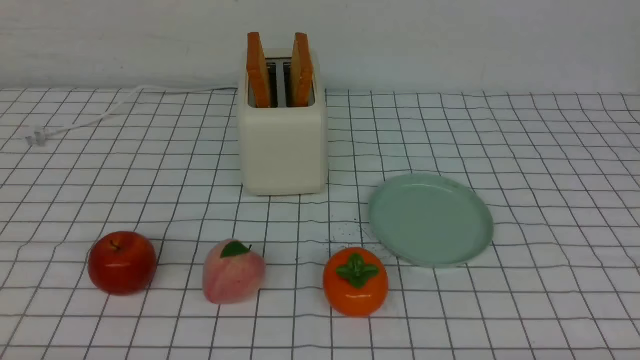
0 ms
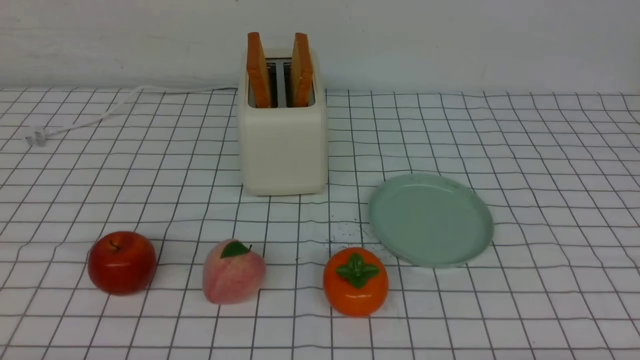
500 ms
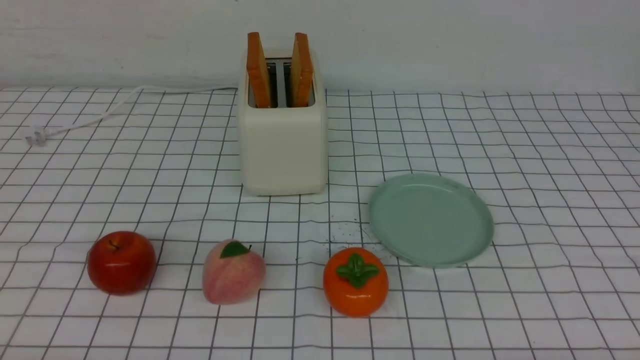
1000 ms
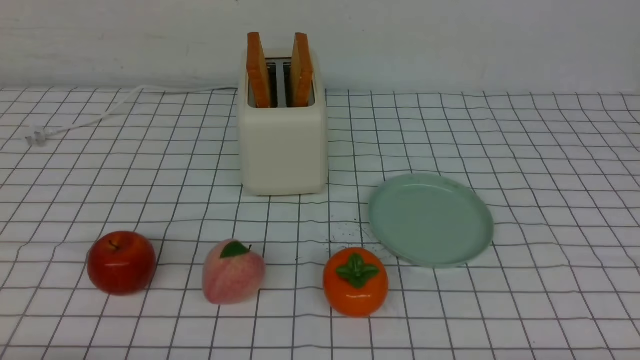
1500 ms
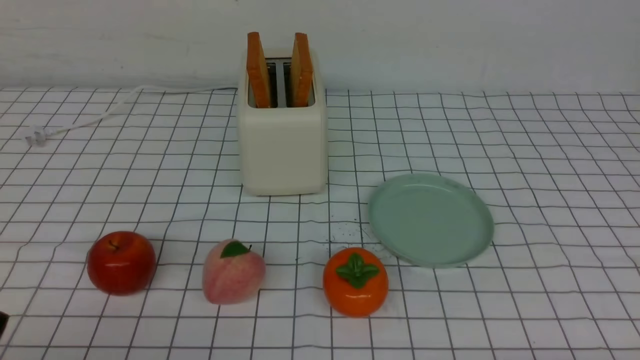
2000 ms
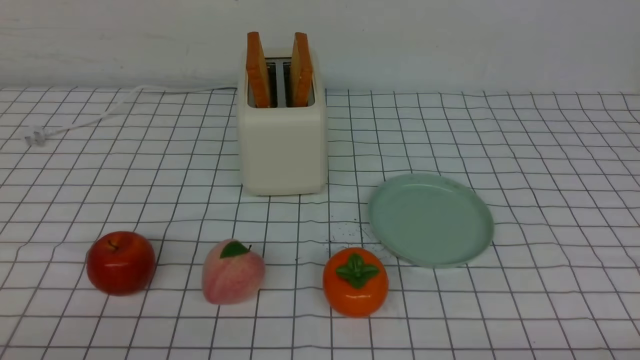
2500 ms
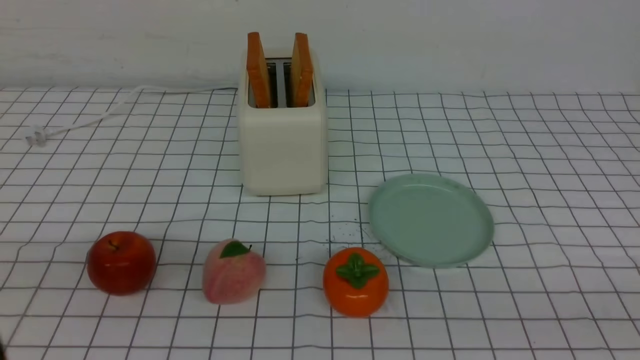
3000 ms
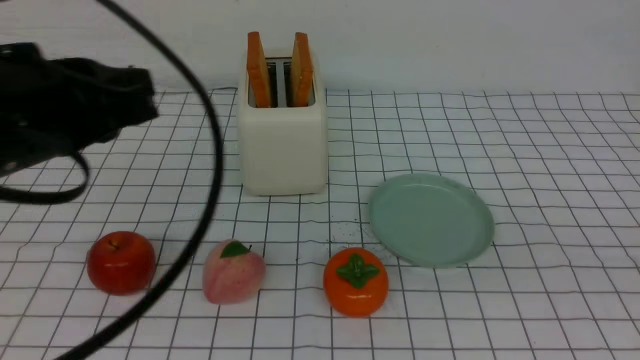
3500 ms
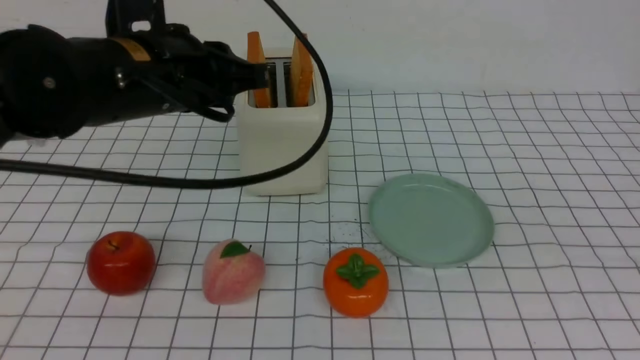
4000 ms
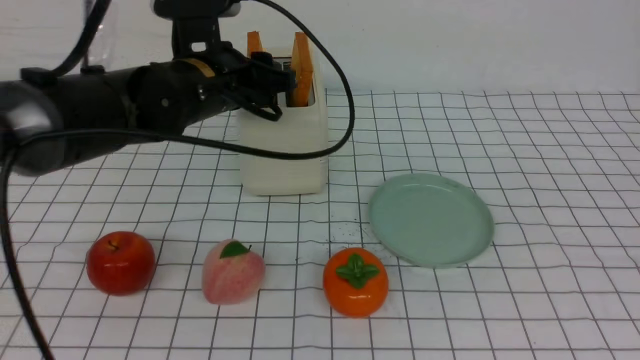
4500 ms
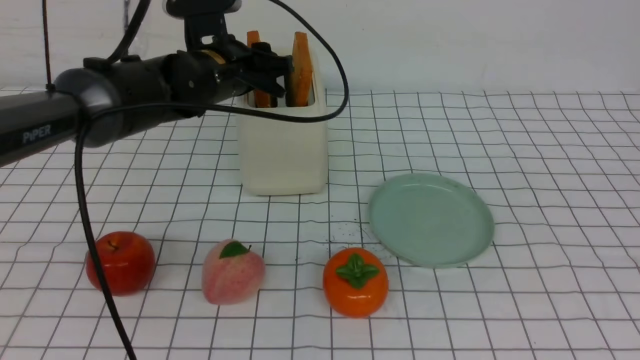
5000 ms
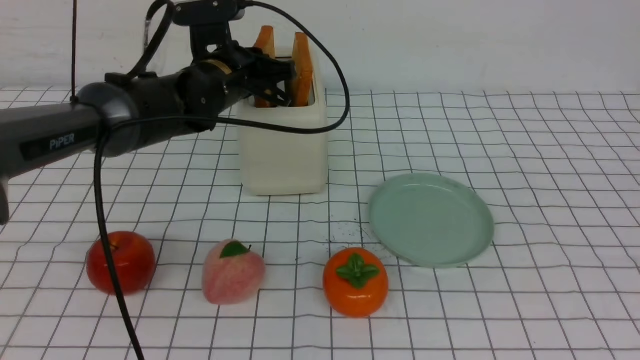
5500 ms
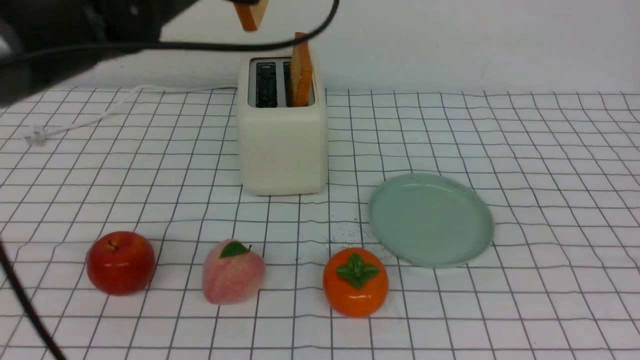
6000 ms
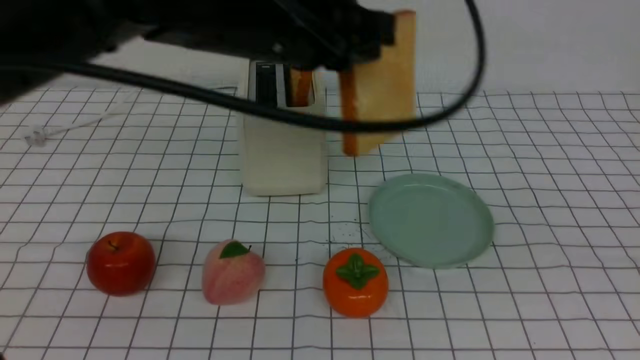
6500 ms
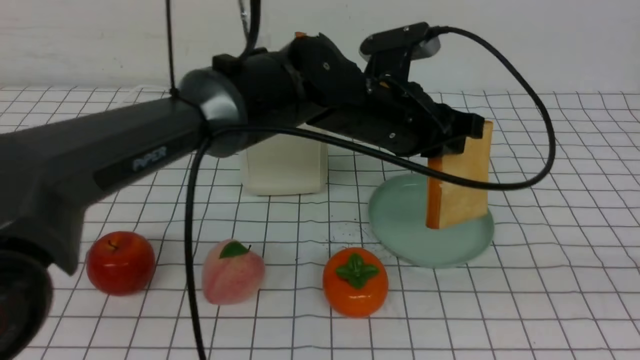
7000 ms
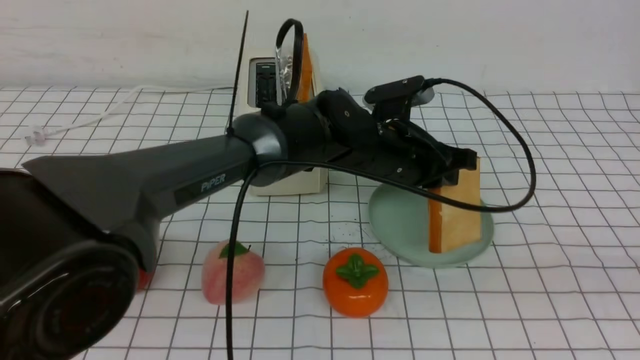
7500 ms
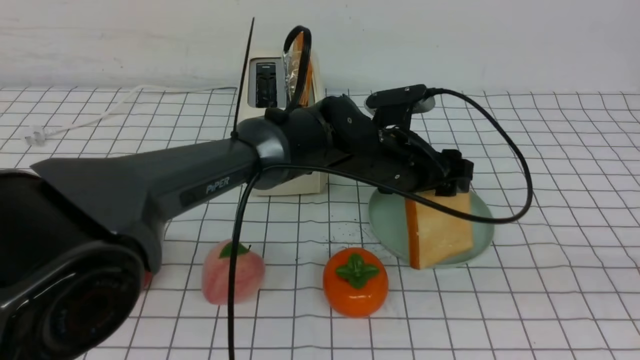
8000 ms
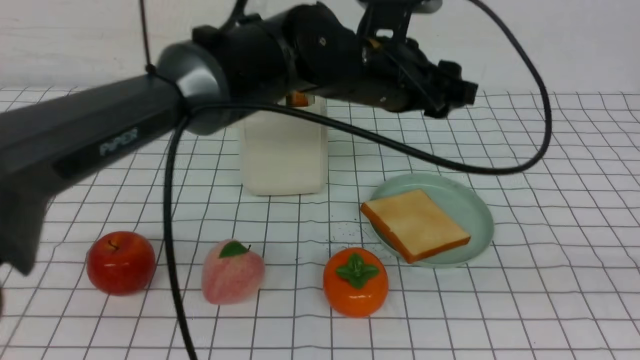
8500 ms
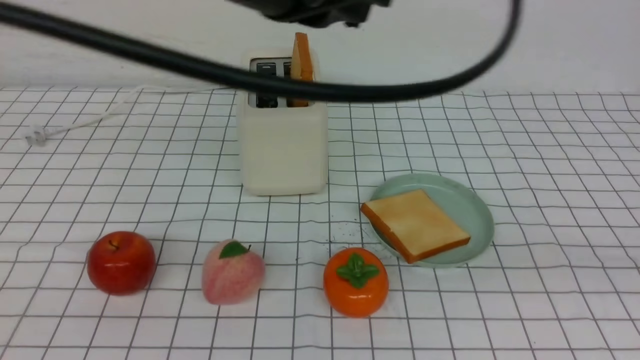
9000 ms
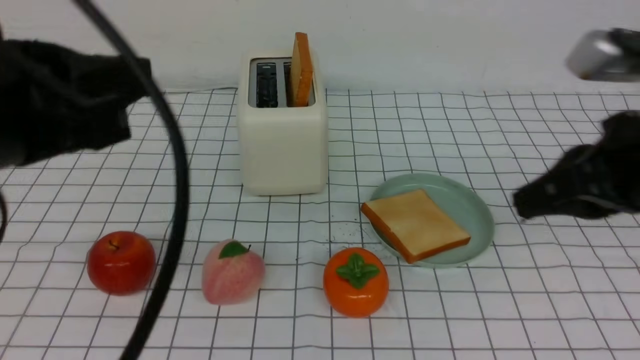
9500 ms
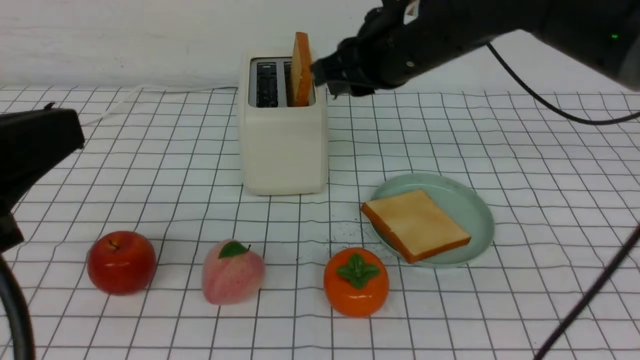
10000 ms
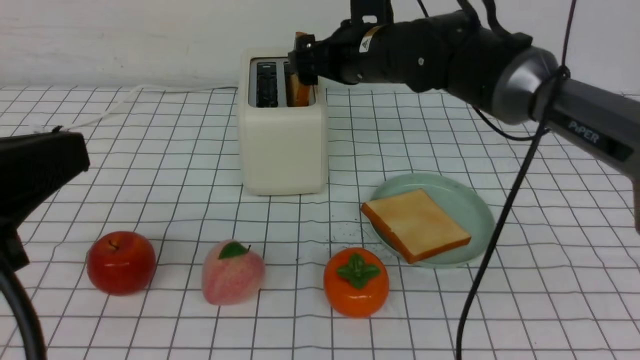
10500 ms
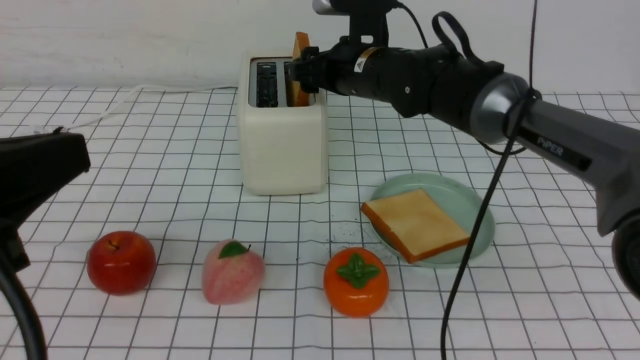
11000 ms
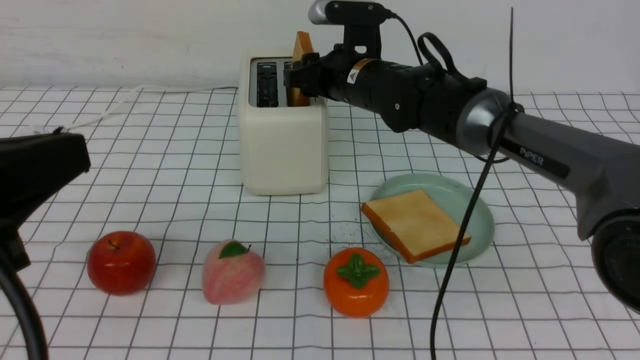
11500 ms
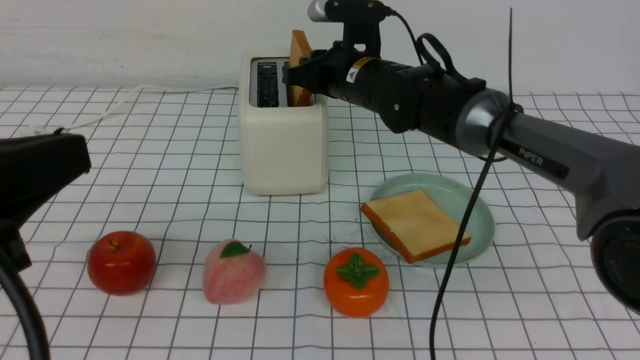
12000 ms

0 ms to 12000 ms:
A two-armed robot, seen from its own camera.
Task of the whole recording: take toasted bread from bread machine on white checkered table place on plate.
Step, 0 ms to 5500 ms: use the left arm to take out a slice of bread.
Step, 6000 ms to 8000 ms: use the left arm to put a slice of bread into the empty plate.
2000 ms to 4000 ms: The right gripper moves upward, roughly 25 cm, and closes its fingers. The left gripper is displaced forward, upward and to the right by approximately 30 cm, and closes, then reopens.
4000 ms to 6000 ms: The left gripper goes roughly 10 cm forward and upward, and opens, then closes once more.
6000 ms to 8000 ms: The right gripper shifts by approximately 5 cm. Meanwhile the left gripper moves to the right and downward, roughly 25 cm, and opens up.
8000 ms to 10000 ms: The left gripper is displaced backward, to the left and upward by approximately 40 cm, and closes its fingers, while the right gripper shifts some 35 cm forward and to the left, and opens.
10000 ms to 12000 ms: The right gripper shifts about 15 cm forward and downward, and opens, then closes once more.

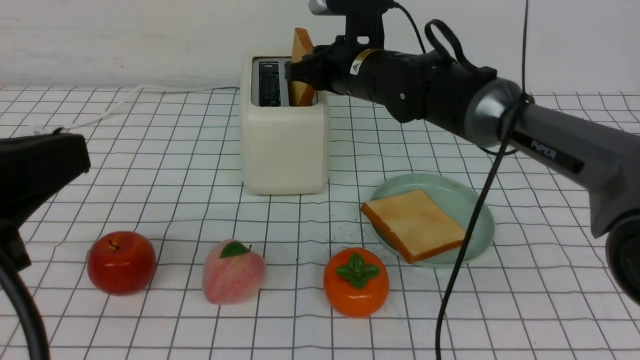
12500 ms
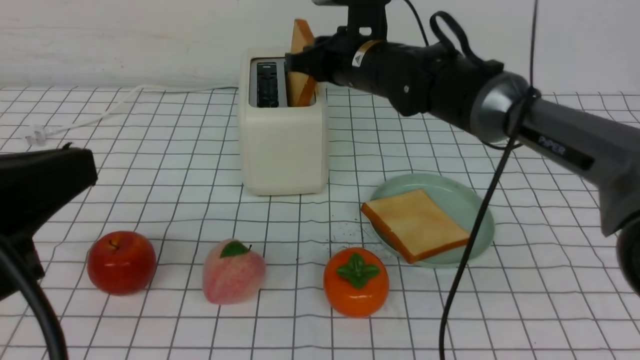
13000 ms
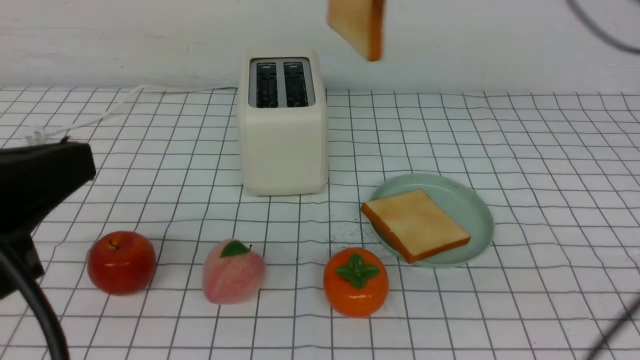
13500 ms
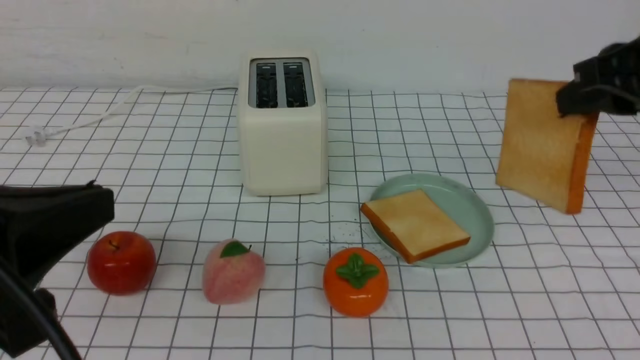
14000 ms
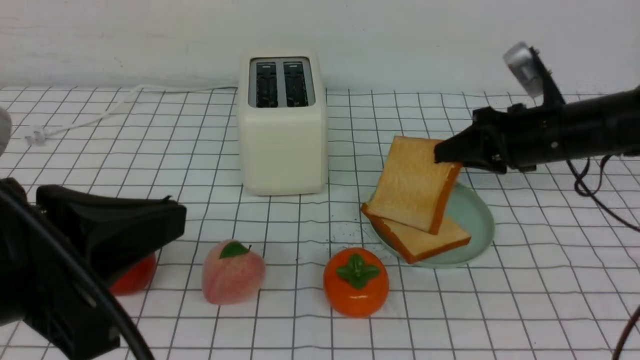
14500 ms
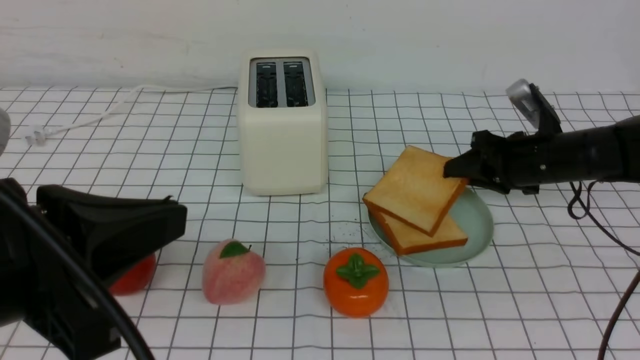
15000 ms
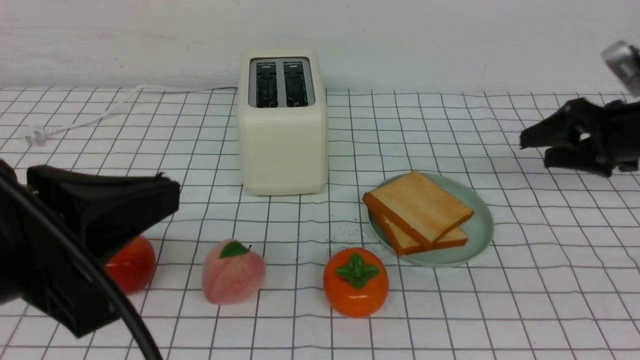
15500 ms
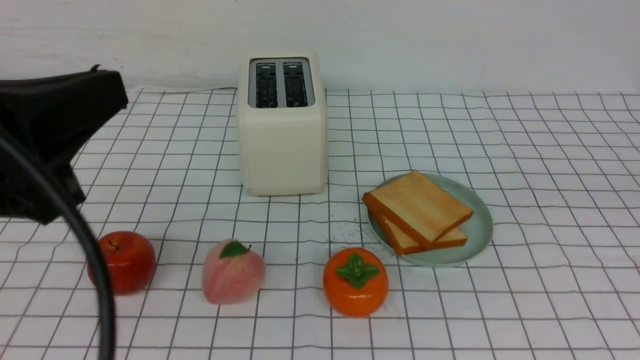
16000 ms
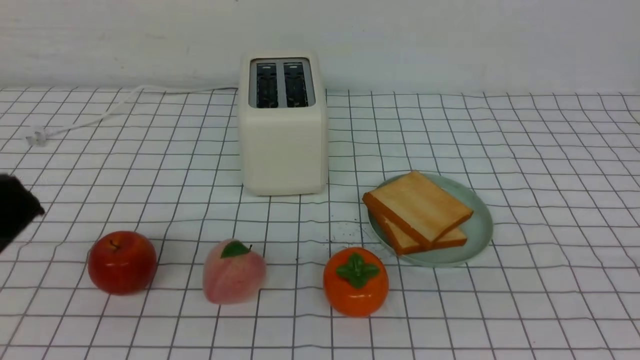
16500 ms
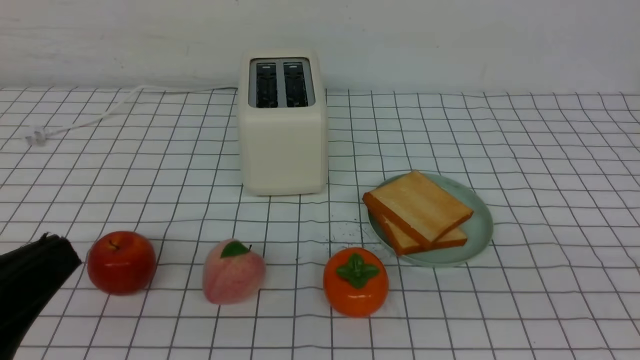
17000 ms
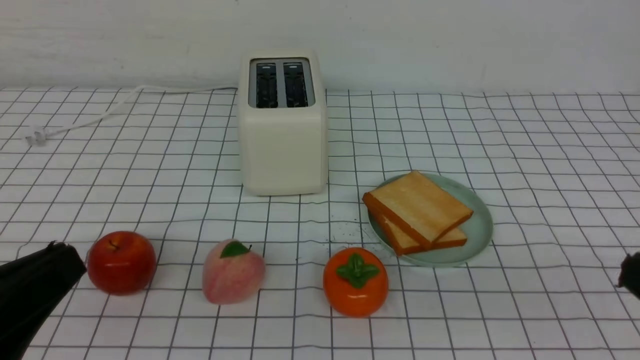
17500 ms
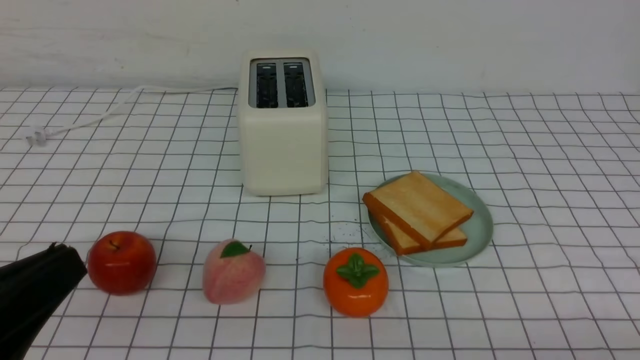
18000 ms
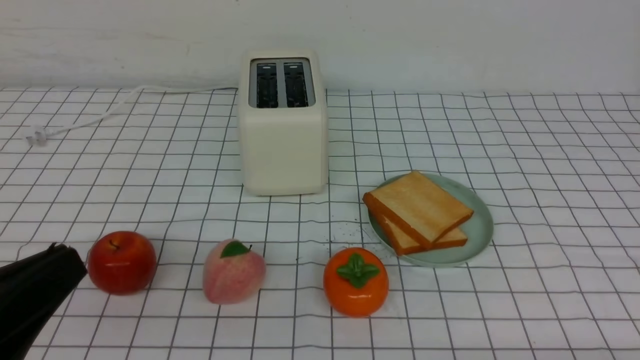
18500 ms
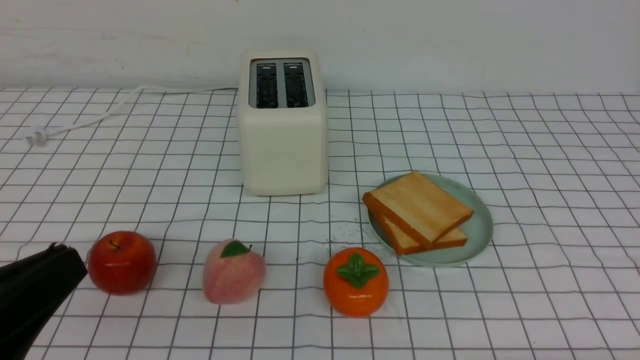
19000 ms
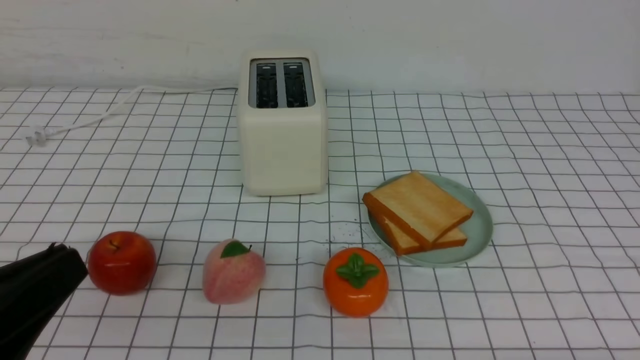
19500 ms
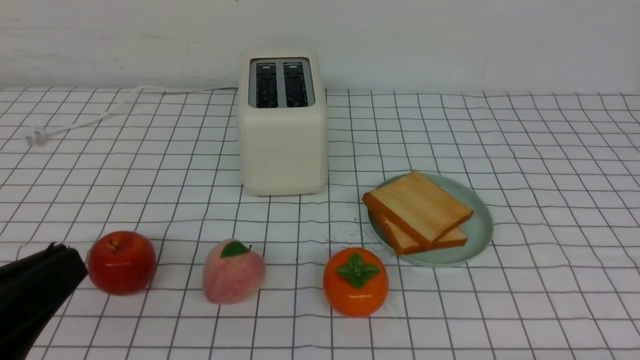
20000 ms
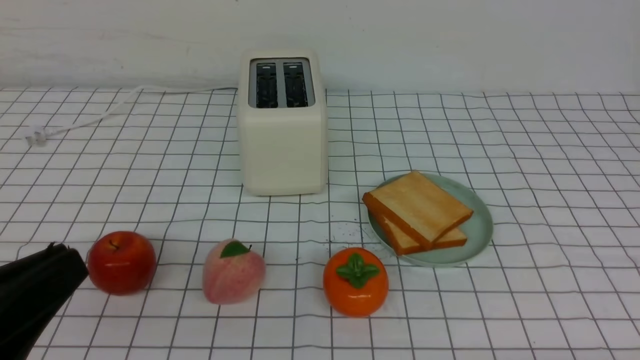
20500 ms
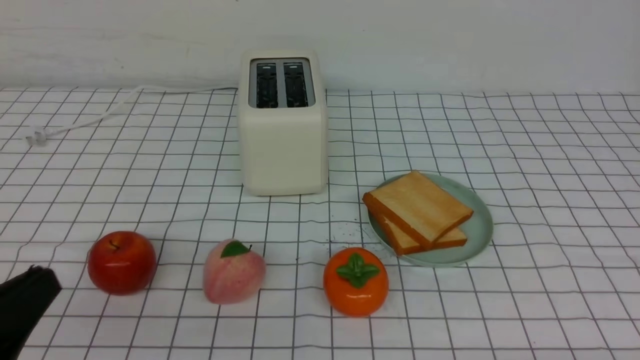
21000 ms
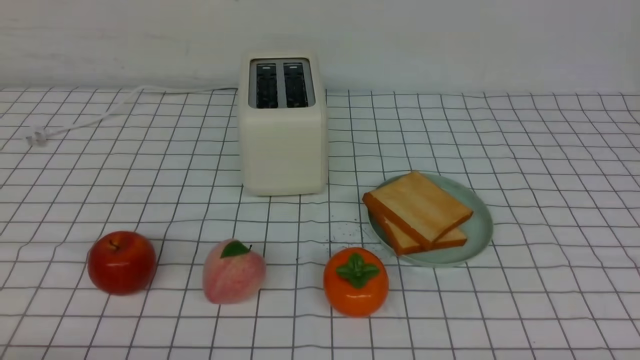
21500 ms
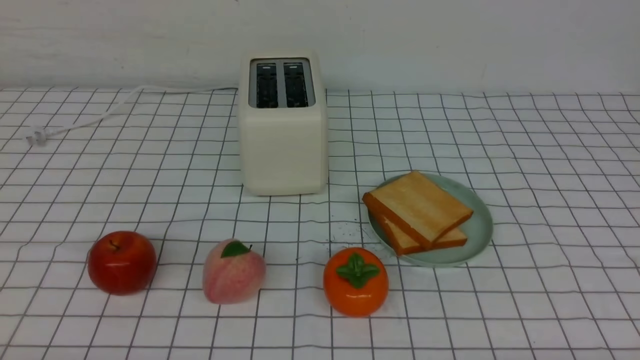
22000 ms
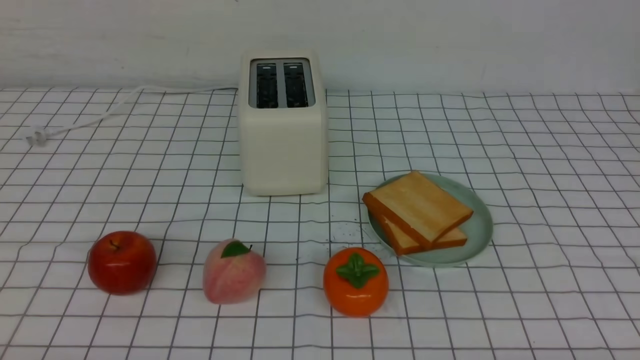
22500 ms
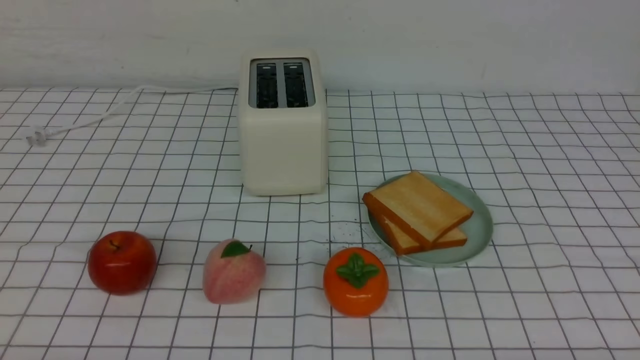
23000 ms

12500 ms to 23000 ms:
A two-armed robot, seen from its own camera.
Task of the whole recording: take toasted bread from bread machine on white checkered table place on plate.
Step, 13500 ms to 15500 ms: use the right arm to put a slice of bread into the plate.
12500 ms to 14500 ms: The right gripper travels to the right and backward by about 20 cm.
14500 ms to 16500 ms: The right gripper travels backward and upward by about 40 cm, and opens, then closes once more; the left gripper heads backward, covering approximately 5 cm.
16500 ms to 19000 ms: The left gripper shifts roughly 5 cm downward.
19000 ms to 21000 ms: The grippers make only small movements.
21000 ms to 23000 ms: The left gripper is displaced downward by about 10 cm.
